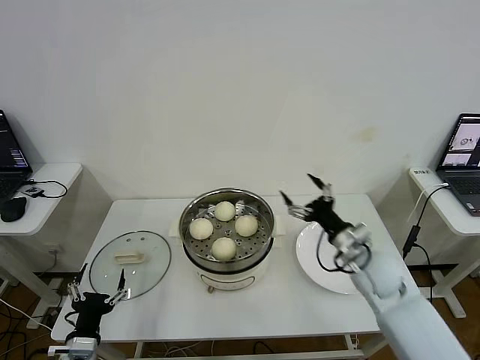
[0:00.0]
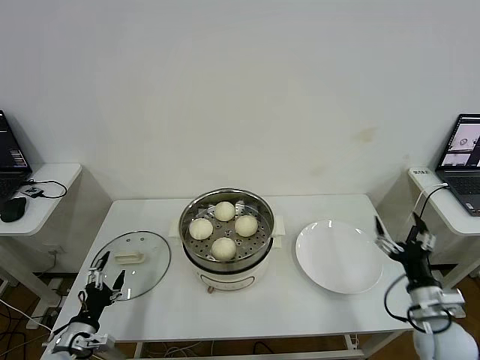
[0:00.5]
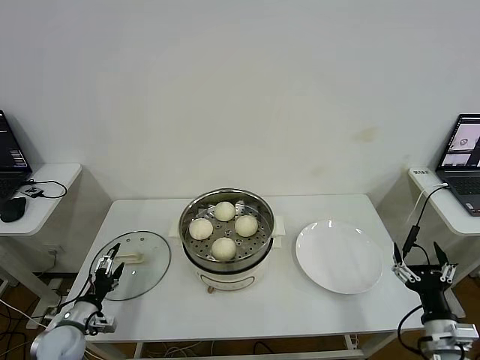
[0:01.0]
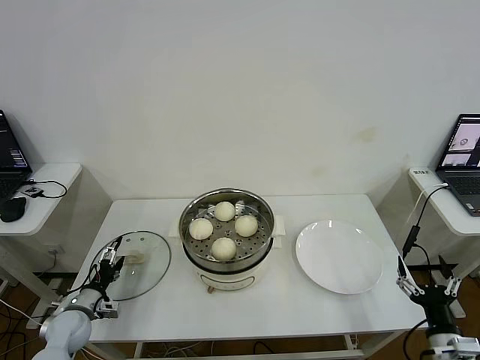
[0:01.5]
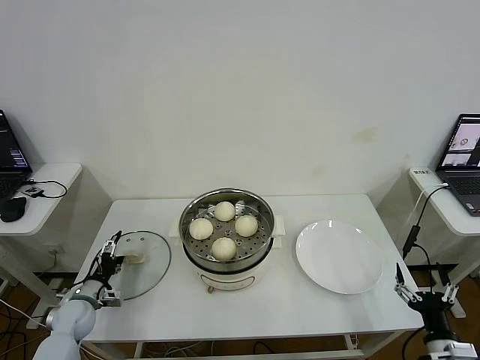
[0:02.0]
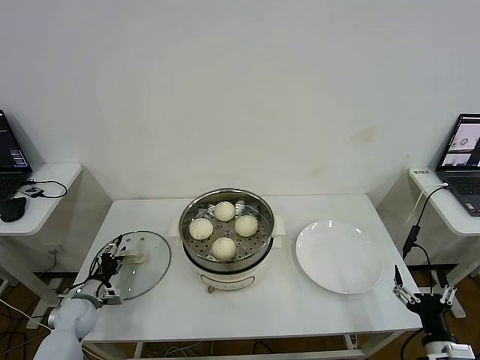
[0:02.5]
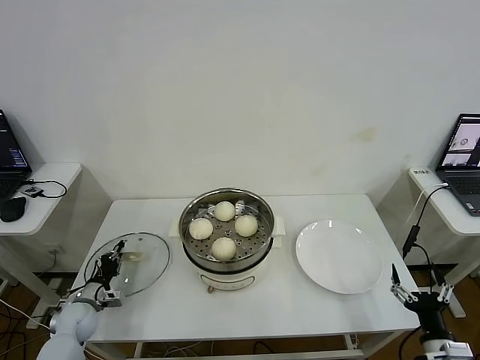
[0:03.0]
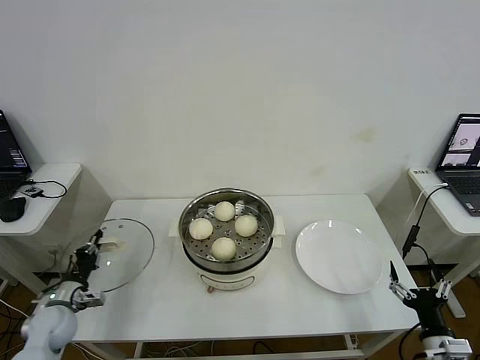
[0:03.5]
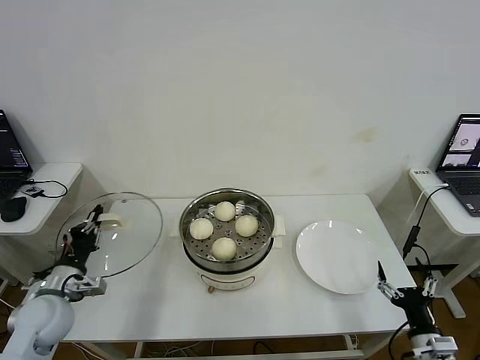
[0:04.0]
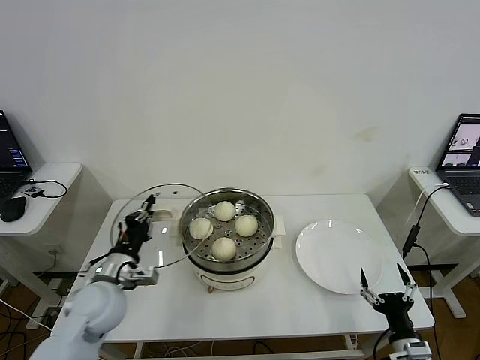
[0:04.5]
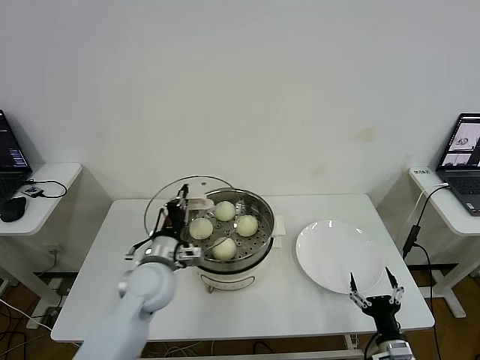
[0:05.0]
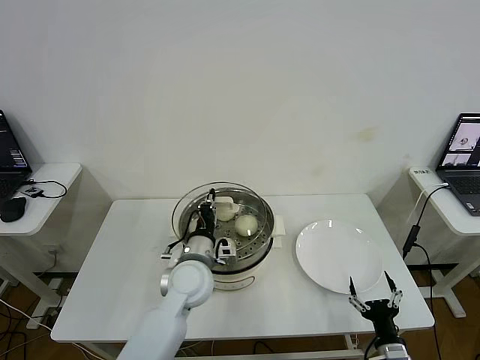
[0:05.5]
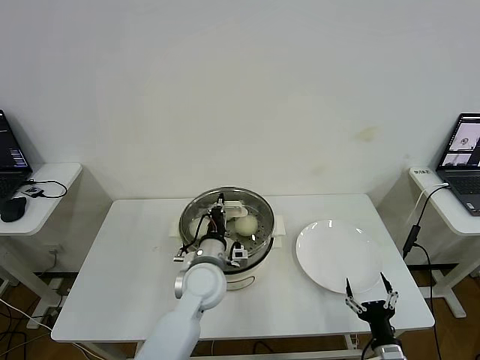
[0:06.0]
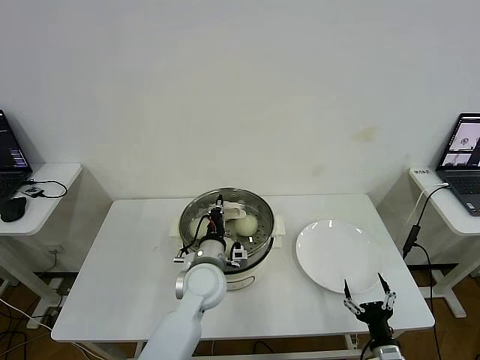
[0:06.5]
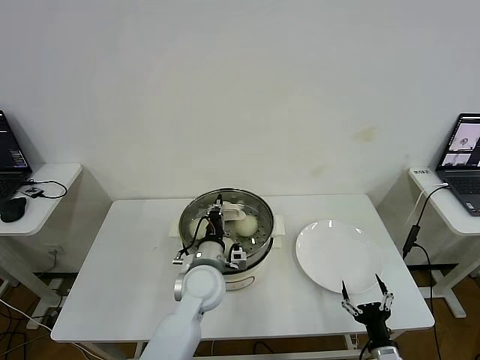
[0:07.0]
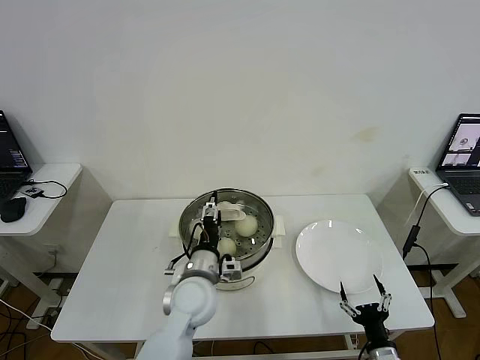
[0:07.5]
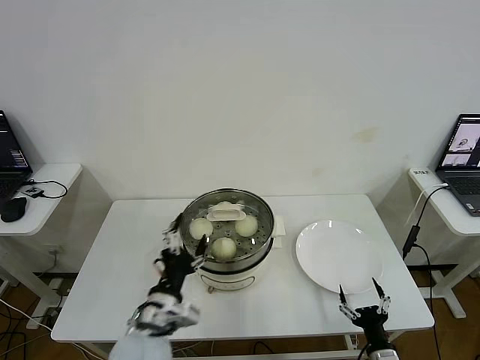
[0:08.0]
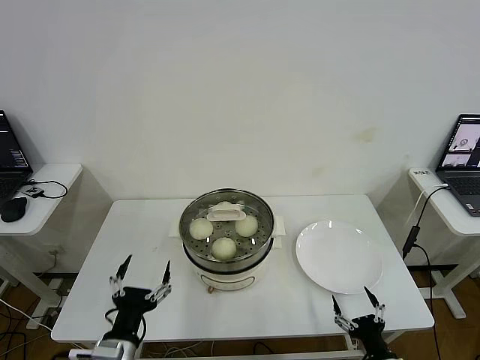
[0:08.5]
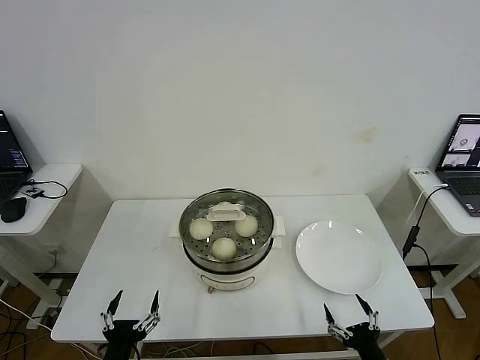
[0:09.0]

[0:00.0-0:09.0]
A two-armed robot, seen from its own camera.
Step, 0:00.0 to 0:03.0: Grasp the pot lid with left gripper.
Step, 0:03.5 to 0:07.0: Place the pot lid on the steamer with left gripper.
0:00.0 to 0:02.0: The right gripper heads backward, to the right and downward, covering roughly 30 cm. The left gripper shifts approximately 20 cm forward, to the left and downward.
0:02.0 to 0:04.5: The right gripper ends up some 5 cm from where it was. Meanwhile the left gripper is displaced upward and to the right by roughly 20 cm, and closes its fingers.
0:04.5 to 0:07.0: The right gripper changes place by about 5 cm, while the left gripper shifts some 20 cm to the right.
0:07.0 to 0:09.0: The left gripper travels backward and to the left by roughly 30 cm, and opens up, while the right gripper changes place by roughly 5 cm.

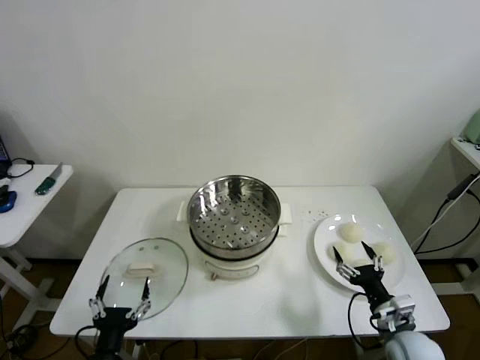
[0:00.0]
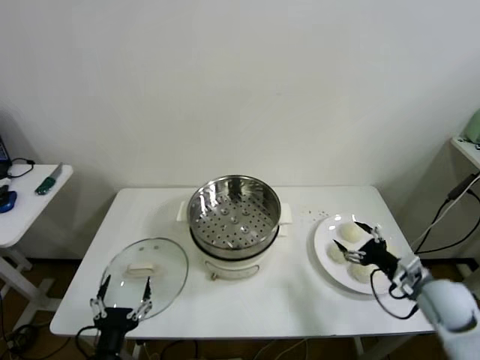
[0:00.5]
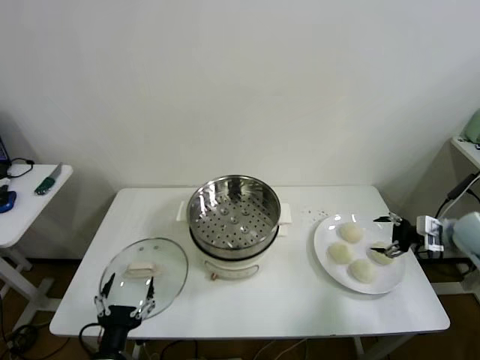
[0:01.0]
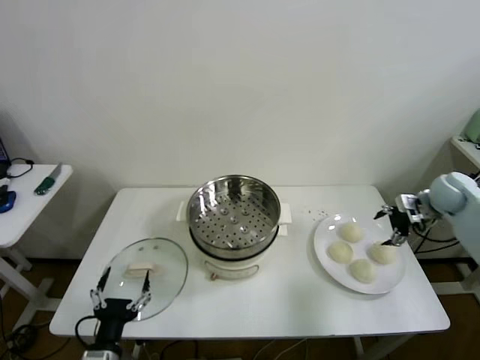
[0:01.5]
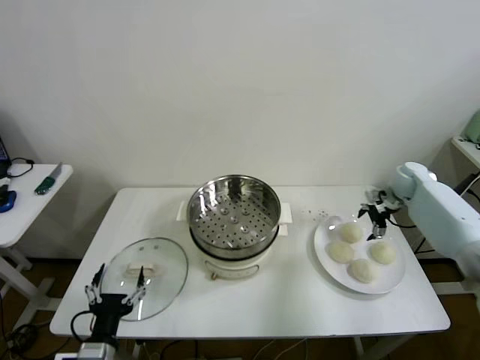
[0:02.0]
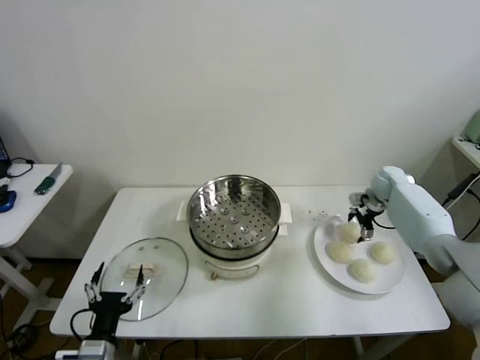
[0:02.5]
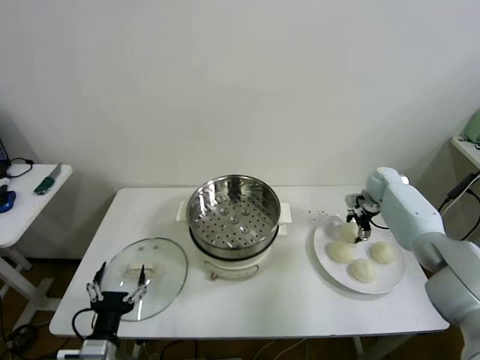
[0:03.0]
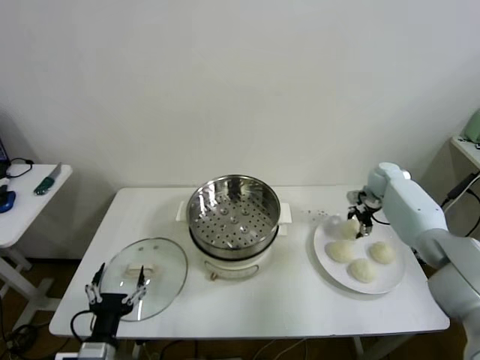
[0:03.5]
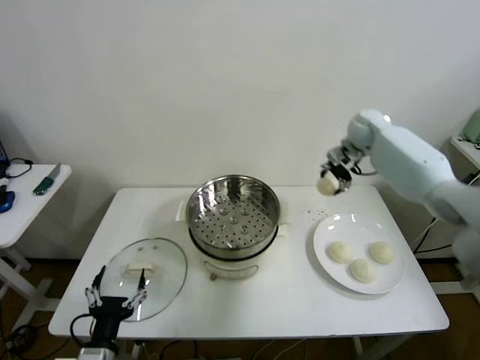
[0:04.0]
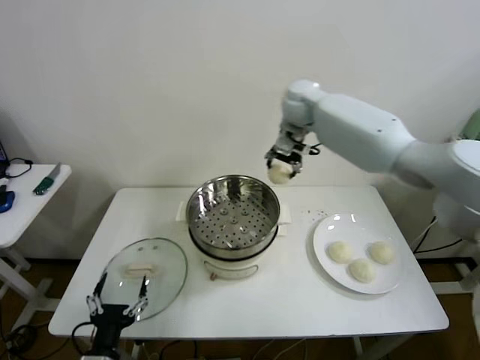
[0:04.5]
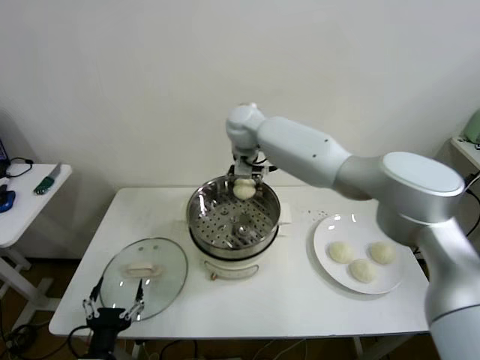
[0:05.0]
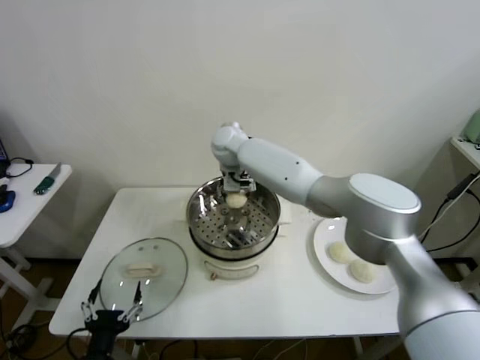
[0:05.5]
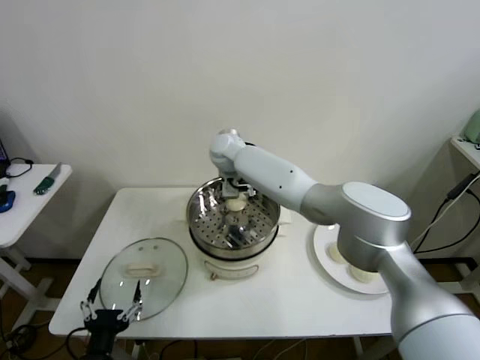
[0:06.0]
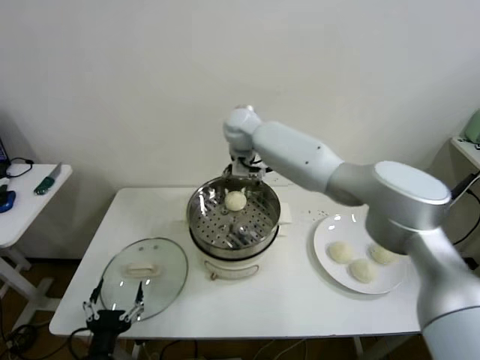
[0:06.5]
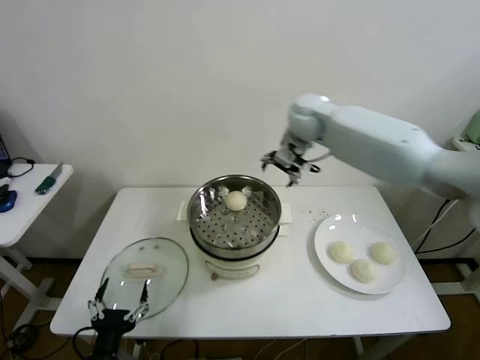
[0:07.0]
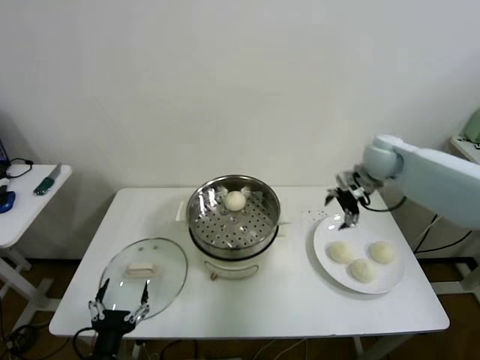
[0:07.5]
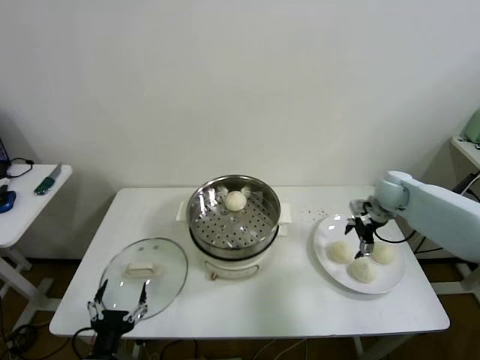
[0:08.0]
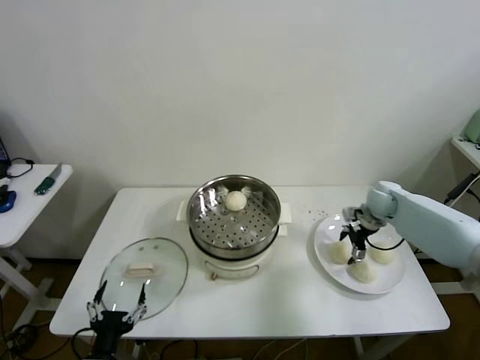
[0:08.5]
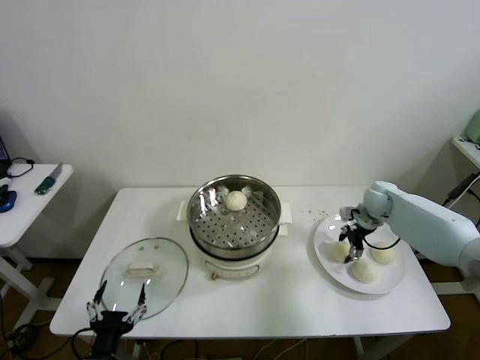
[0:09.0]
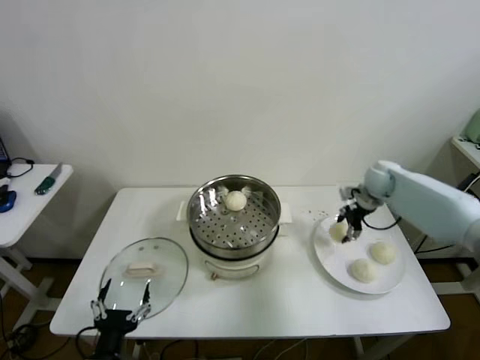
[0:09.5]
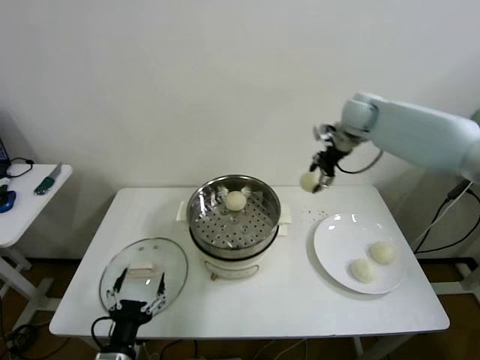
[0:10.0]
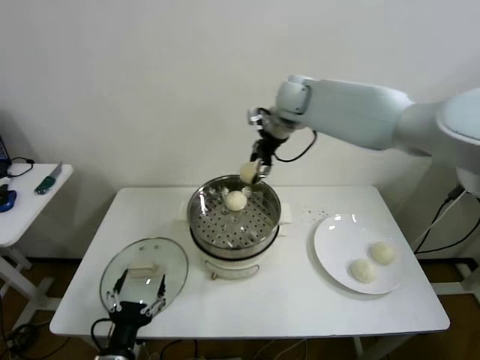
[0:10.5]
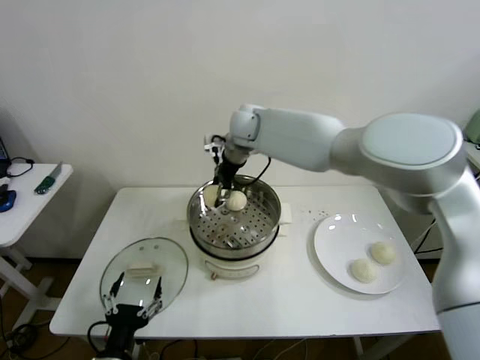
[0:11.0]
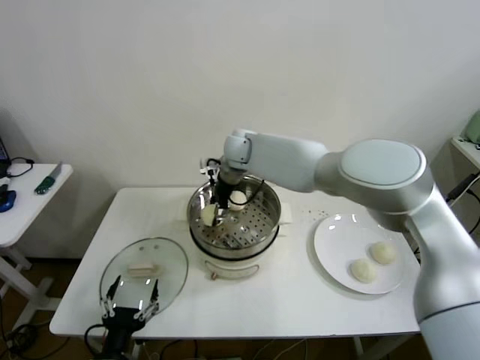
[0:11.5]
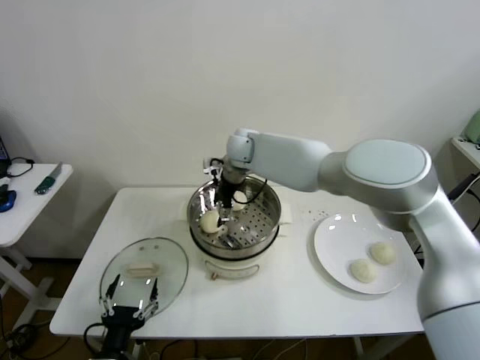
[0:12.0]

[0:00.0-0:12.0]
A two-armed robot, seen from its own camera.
Step, 0:00.0 to 0:03.0: Grasp the baozi in the plate with right gripper.
Step, 0:03.5 to 0:05.5: Place the baozi on the steamer with right gripper.
Step, 0:06.0 to 0:08.5: Grasp the baozi in the plate with right gripper.
Step, 0:09.0 to 0:11.5: Place the baozi on the steamer with right gripper.
0:02.0 to 0:04.0: The right gripper moves to the left, upward and forward, some 20 cm, and closes its fingers.
0:04.0 to 0:06.0: The right gripper goes roughly 35 cm to the left, and opens up.
0:06.0 to 0:08.0: The right gripper travels to the right by about 40 cm.
0:08.0 to 0:10.0: The right gripper shifts some 20 cm upward, to the left and forward, and closes.
0:10.0 to 0:12.0: The right gripper goes some 30 cm to the left, and opens its fingers.

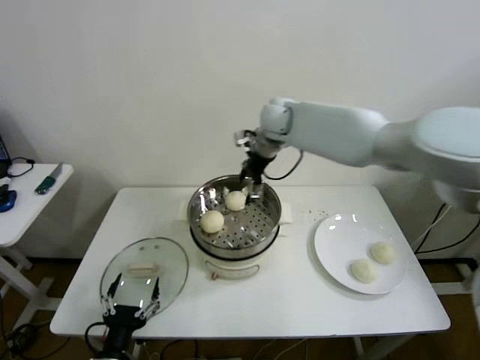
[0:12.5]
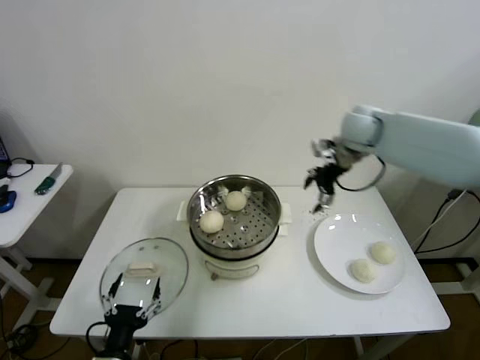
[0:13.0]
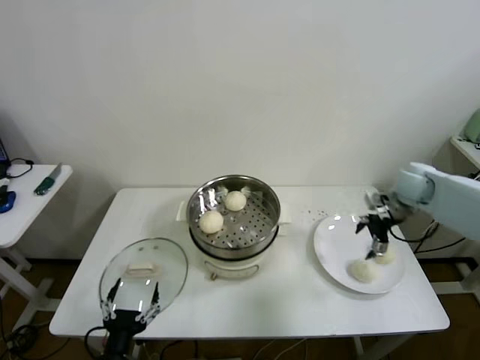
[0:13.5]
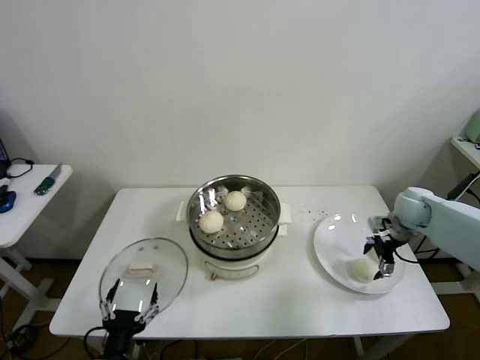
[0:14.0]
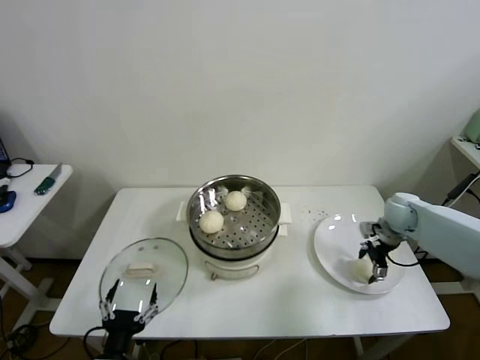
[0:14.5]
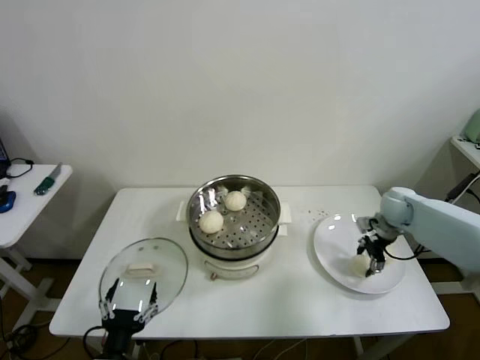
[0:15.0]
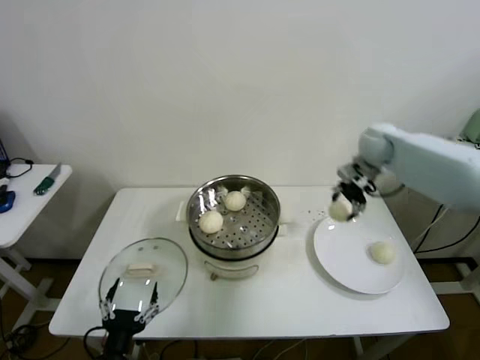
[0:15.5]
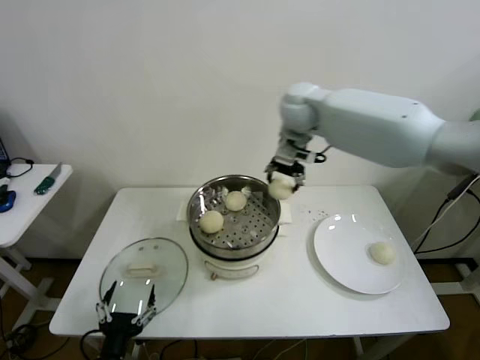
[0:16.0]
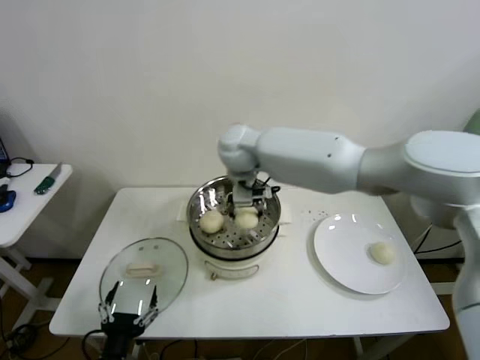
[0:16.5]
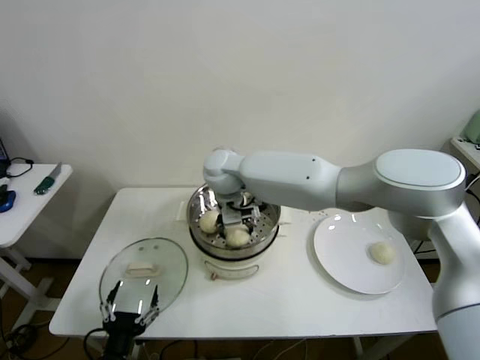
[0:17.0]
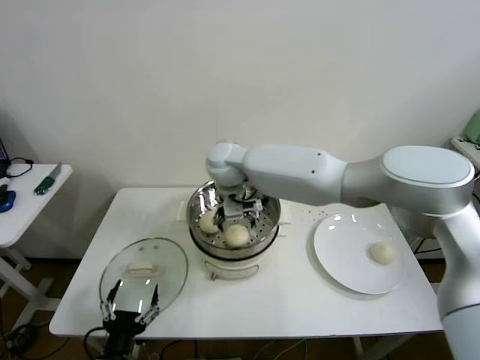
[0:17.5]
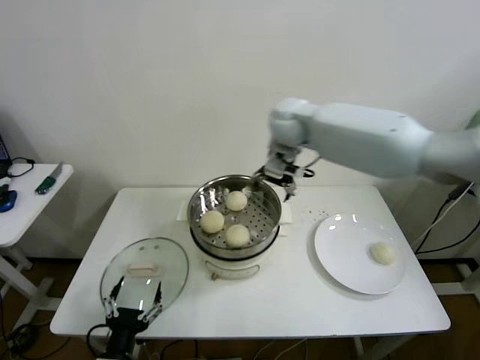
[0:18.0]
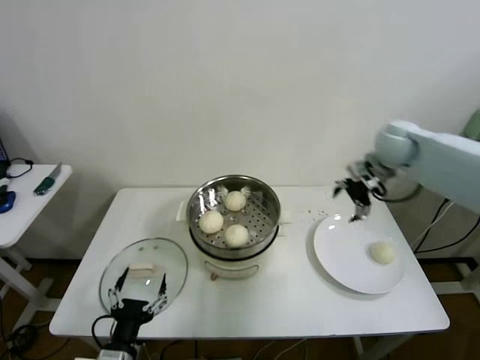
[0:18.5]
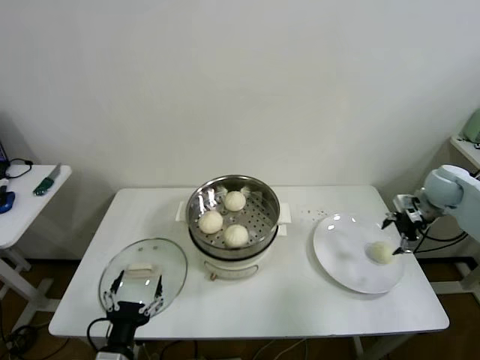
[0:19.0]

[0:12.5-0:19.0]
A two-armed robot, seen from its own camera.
Step, 0:12.5 to 0:14.5: Grasp the baozi in the plate with right gripper.
Step, 0:15.0 to 0:17.0: Place the baozi on the steamer with right gripper.
0:12.5 to 0:14.5: The right gripper moves to the right and downward, approximately 40 cm.
0:14.5 to 0:17.0: The right gripper is displaced to the left by some 50 cm, and closes.
0:17.0 to 0:19.0: The right gripper heads to the right, covering some 50 cm, and opens.
